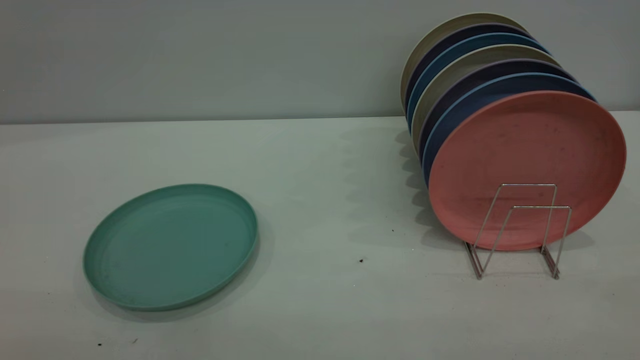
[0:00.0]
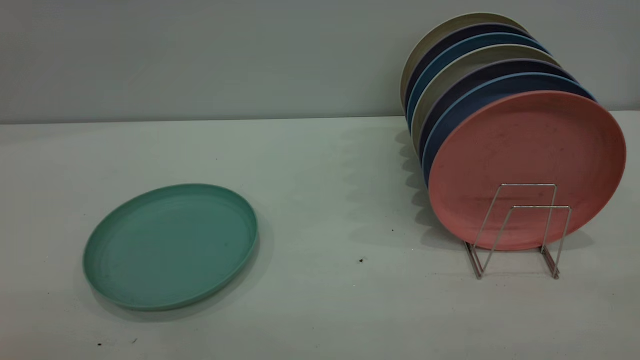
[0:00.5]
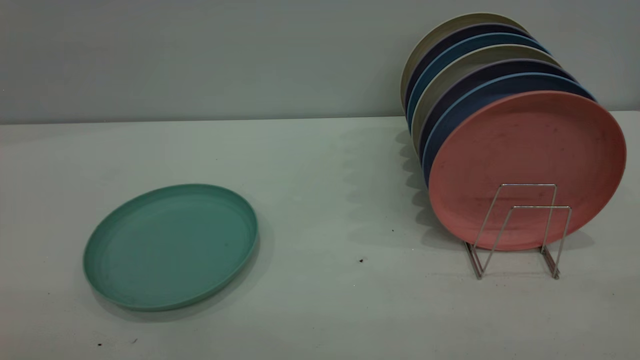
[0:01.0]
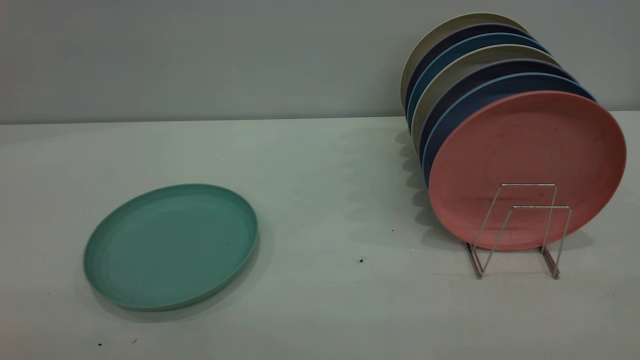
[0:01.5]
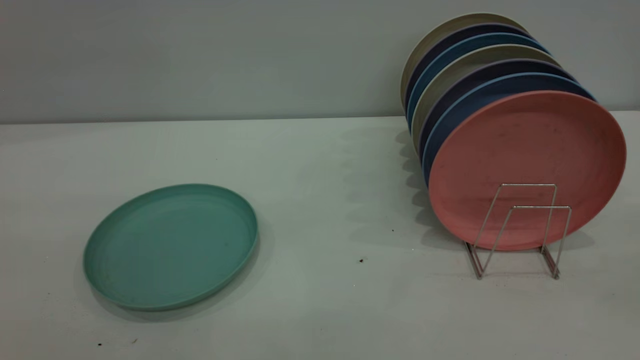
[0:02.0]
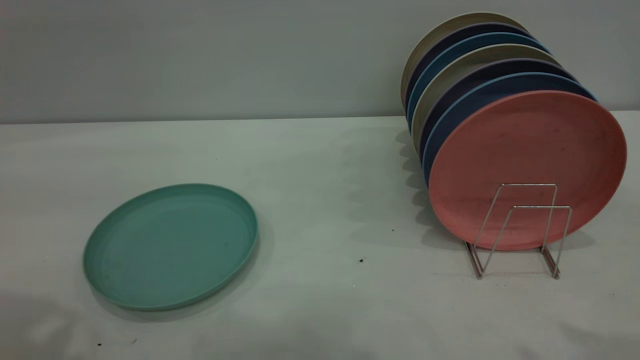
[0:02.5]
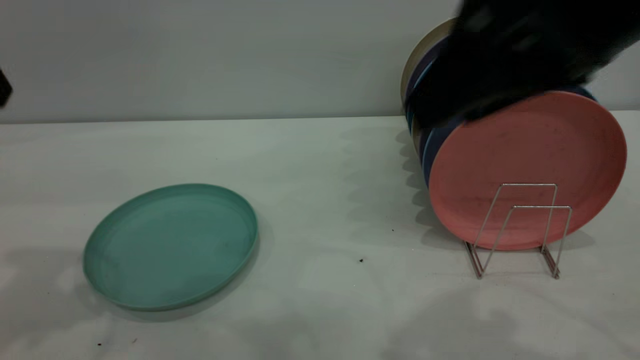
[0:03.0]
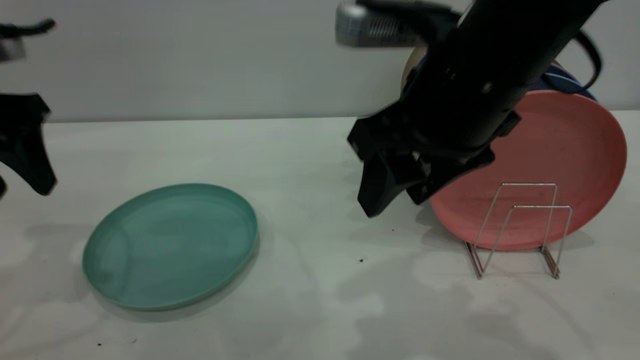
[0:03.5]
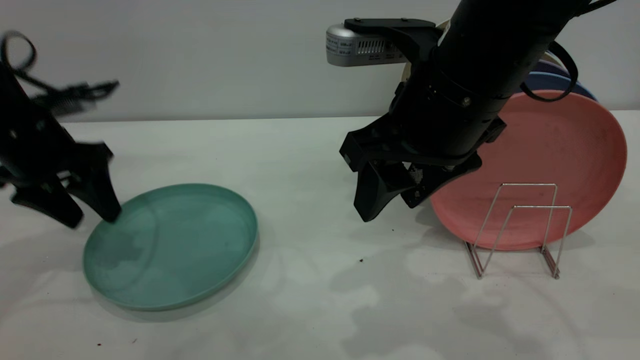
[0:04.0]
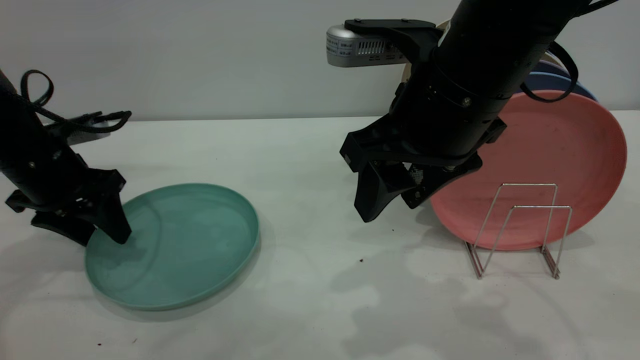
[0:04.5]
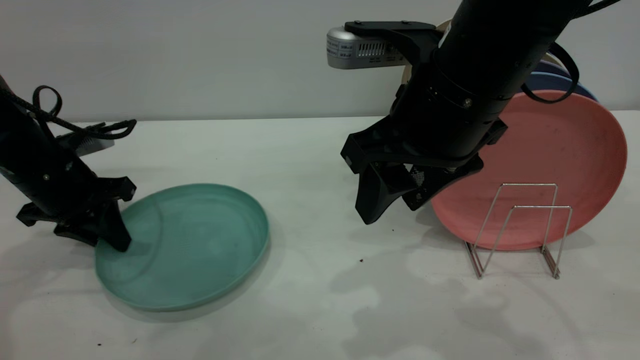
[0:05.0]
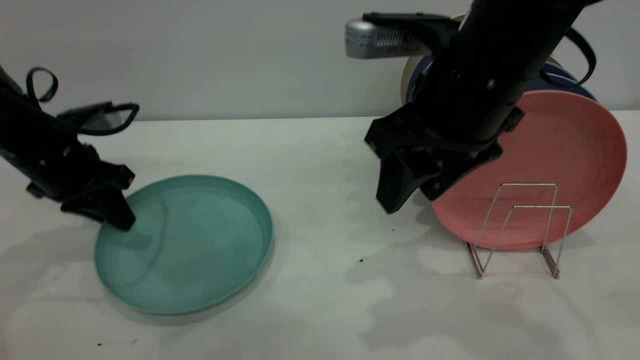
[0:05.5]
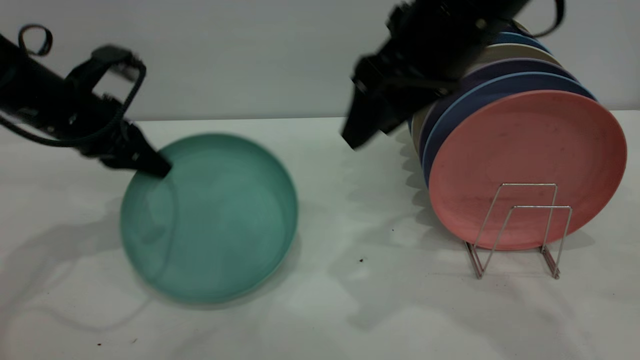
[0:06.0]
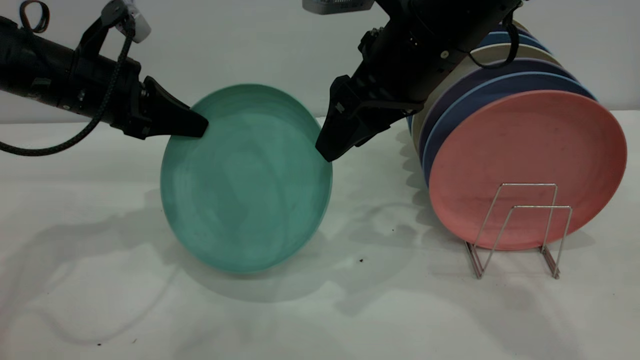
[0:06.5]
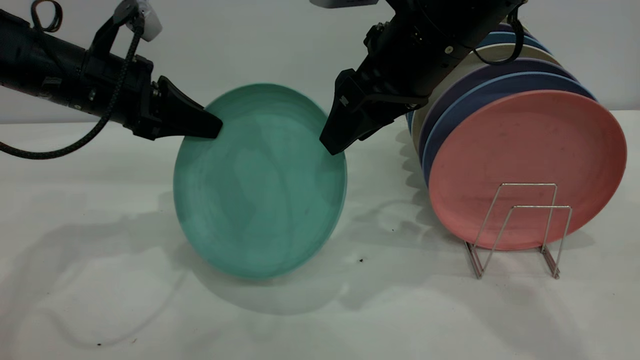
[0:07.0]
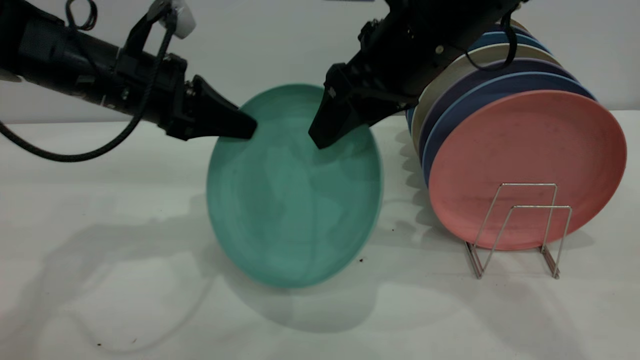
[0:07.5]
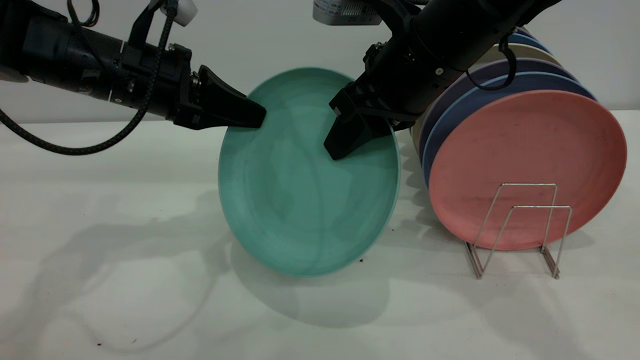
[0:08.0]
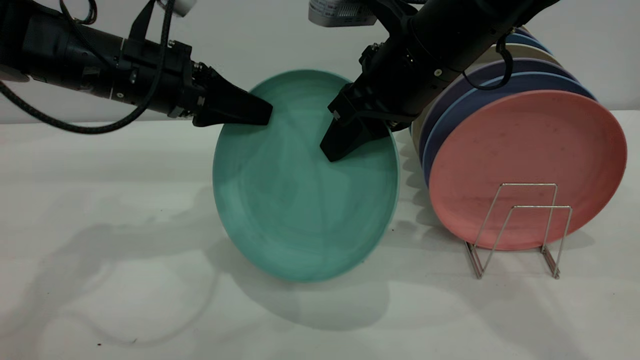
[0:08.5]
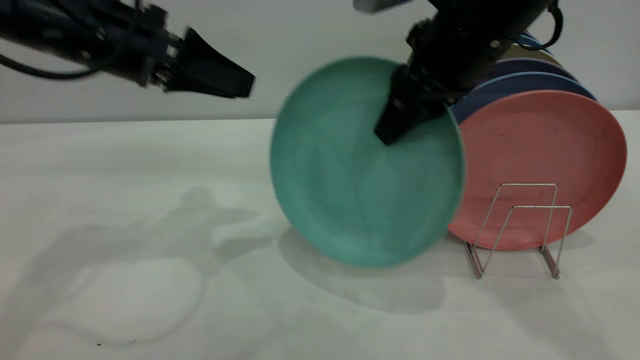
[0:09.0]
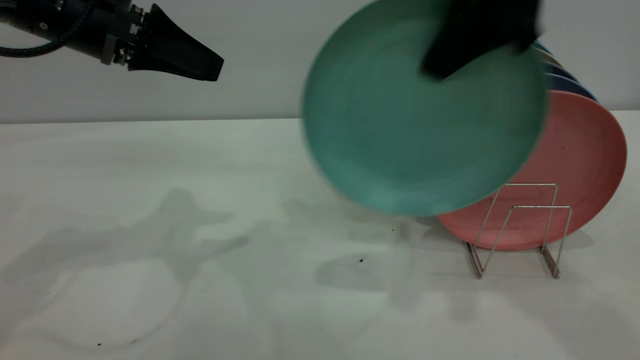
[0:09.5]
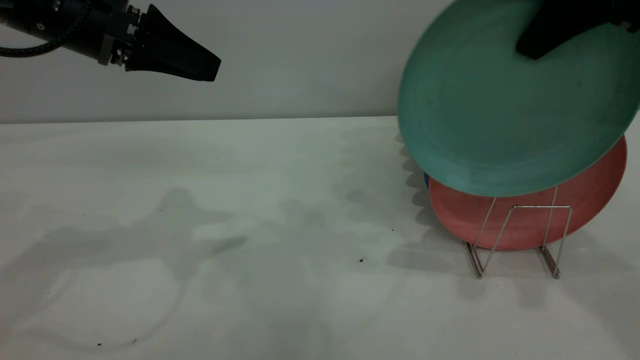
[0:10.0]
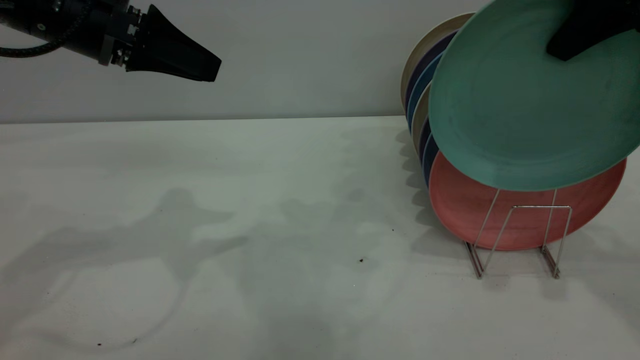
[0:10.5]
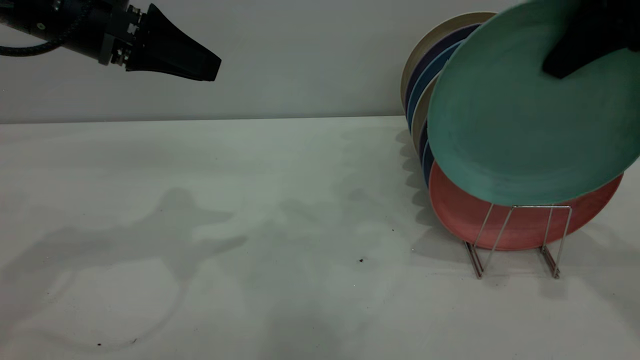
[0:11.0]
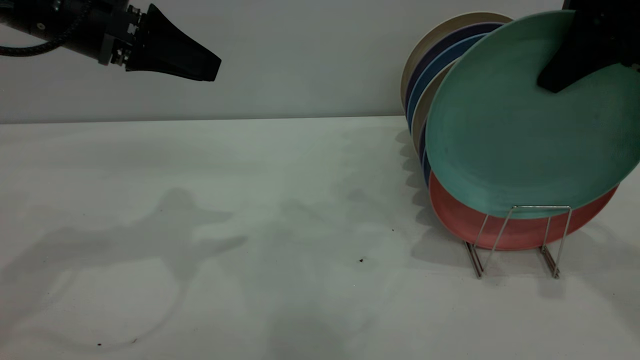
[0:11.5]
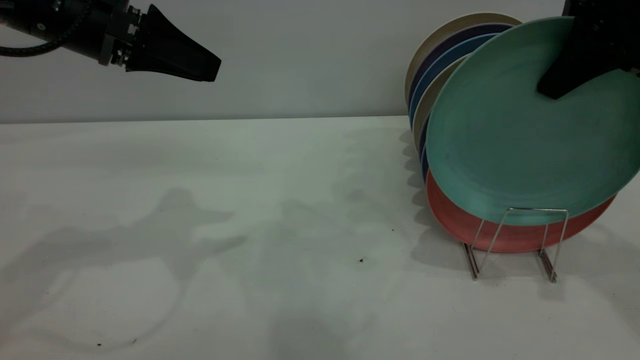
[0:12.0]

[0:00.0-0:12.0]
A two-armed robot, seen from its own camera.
Task of the whole recording: the left gripper grasp the green plate, the left gripper pass the green plate to the right gripper, and the right gripper place the green plate on the plate rack.
Step, 0:00.0 to 0:05.5: Pick up the plate with the left gripper.
Step, 0:06.5 to 0:08.5: Pass the plate from the left gripper to the right gripper.
0:02.0 to 0:04.0: The left gripper heads forward and downward, covering approximately 40 cm. The right gripper is displaced forward, to the left and downward by about 35 cm.
0:04.0 to 0:06.0: The right gripper changes place by roughly 5 cm. The left gripper closes its fingers.
0:06.0 to 0:08.0: The right gripper ends up about 5 cm from where it was, and closes its fingers. Meanwhile the left gripper moves to the right, about 10 cm.
0:08.0 to 0:10.0: The left gripper moves upward, approximately 5 cm, and opens up. Meanwhile the right gripper shifts some 15 cm to the right and upward.
0:10.0 to 0:12.0: There are only small adjustments of the grippers.

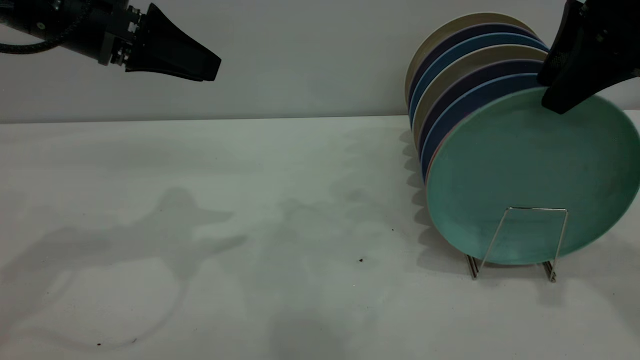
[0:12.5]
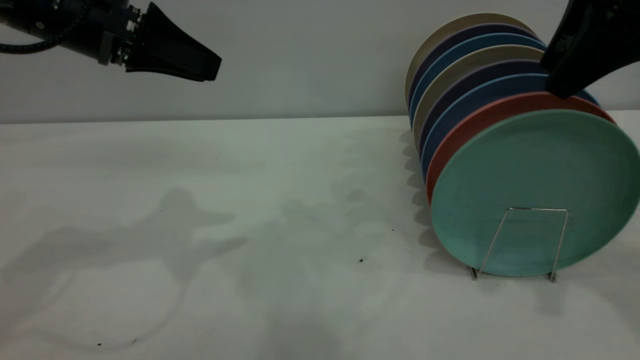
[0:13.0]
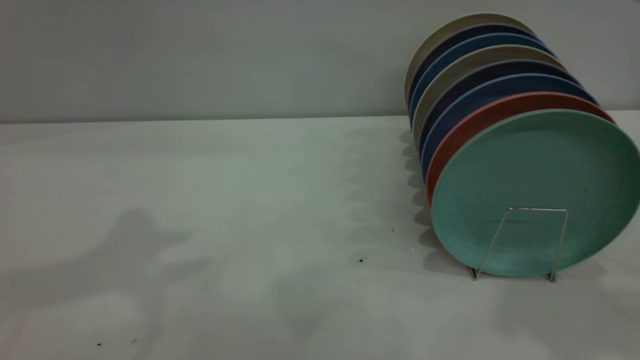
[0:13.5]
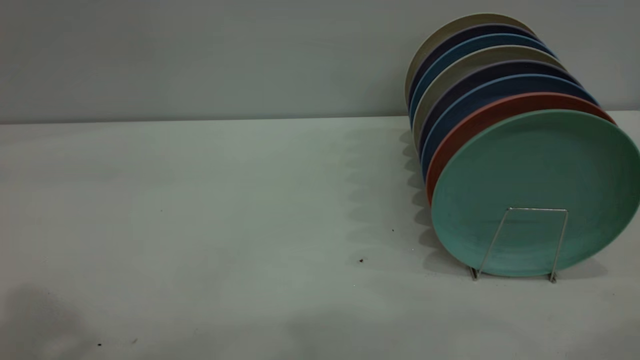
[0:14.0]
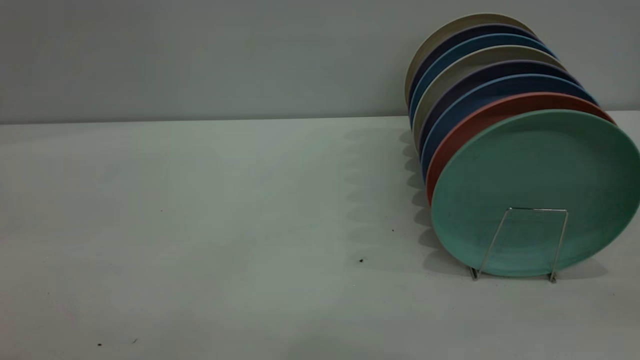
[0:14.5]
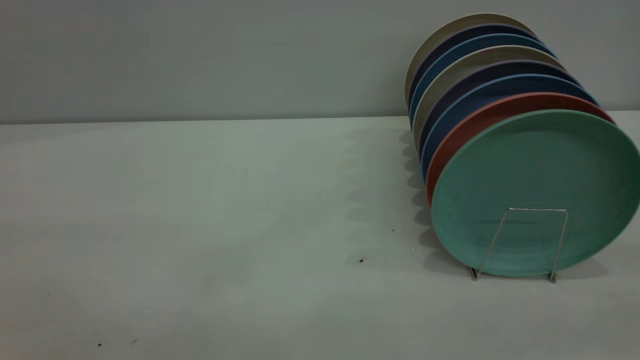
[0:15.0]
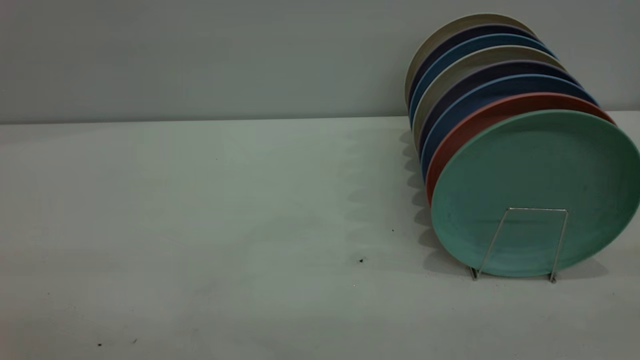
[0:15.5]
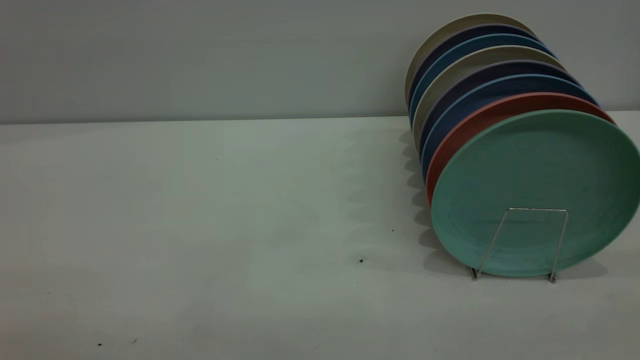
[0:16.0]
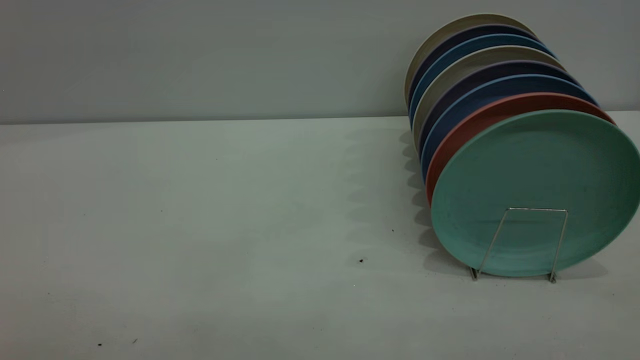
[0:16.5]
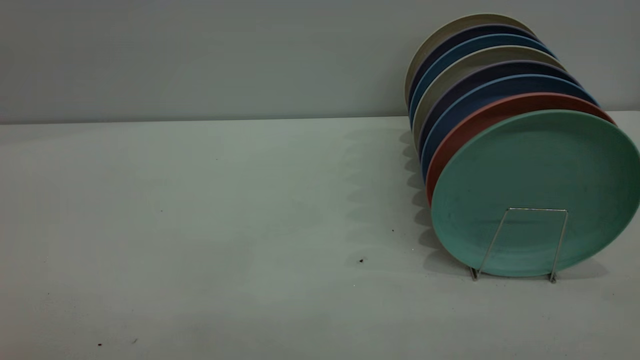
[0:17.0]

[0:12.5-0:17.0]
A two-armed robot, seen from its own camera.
Task of the whole recording: the left gripper grasp the green plate, the left gripper pass the green plate to the right gripper, and the right gripper place the green plate on the plate rack.
0:12.5 to 0:14.5: The left gripper travels backward and upward by about 30 cm, while the right gripper moves backward, approximately 30 cm.
